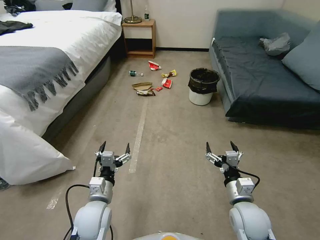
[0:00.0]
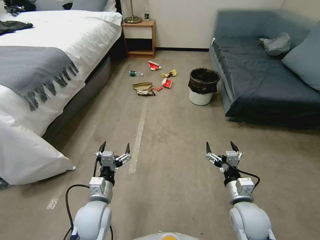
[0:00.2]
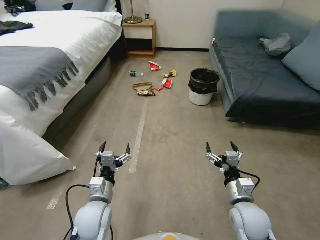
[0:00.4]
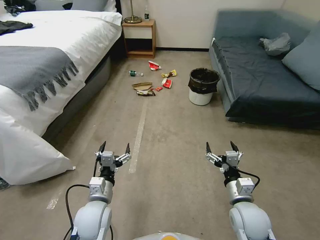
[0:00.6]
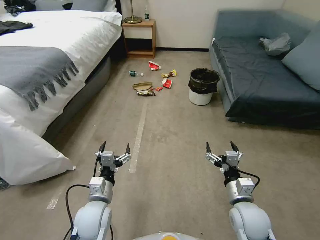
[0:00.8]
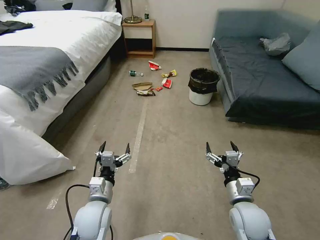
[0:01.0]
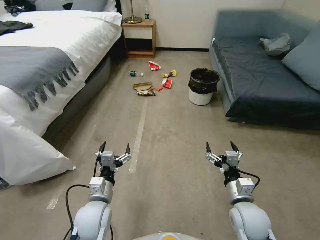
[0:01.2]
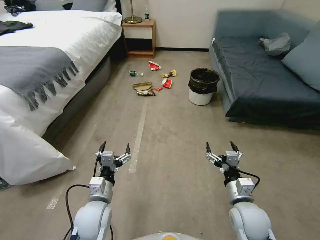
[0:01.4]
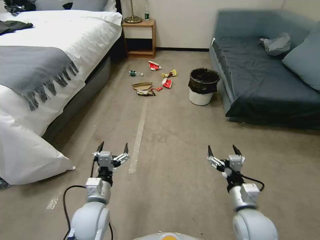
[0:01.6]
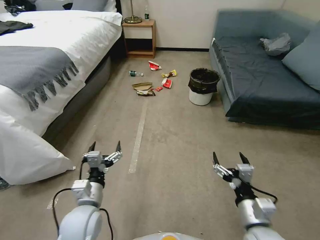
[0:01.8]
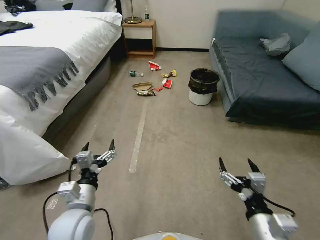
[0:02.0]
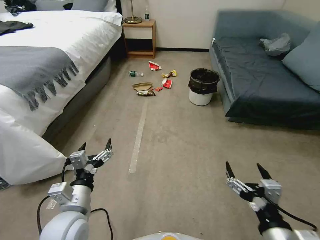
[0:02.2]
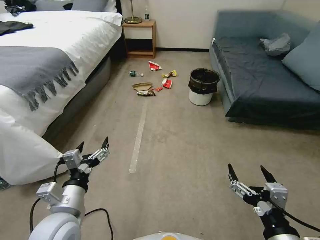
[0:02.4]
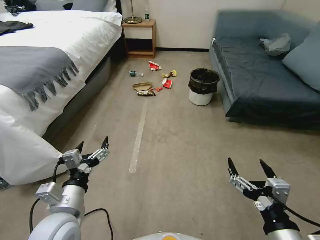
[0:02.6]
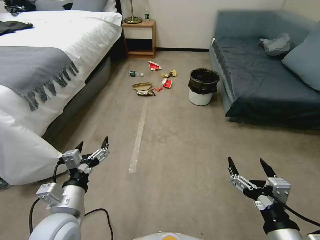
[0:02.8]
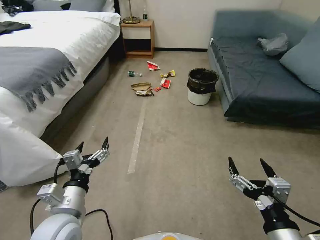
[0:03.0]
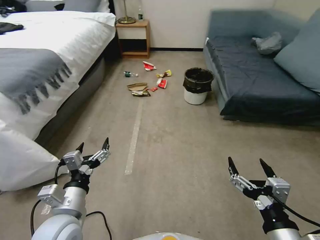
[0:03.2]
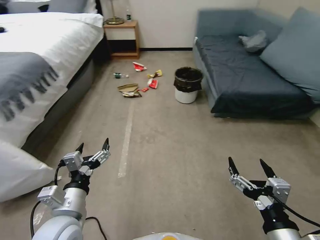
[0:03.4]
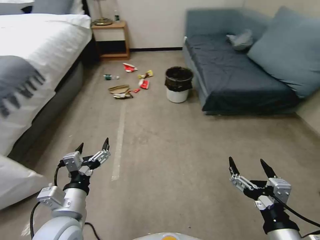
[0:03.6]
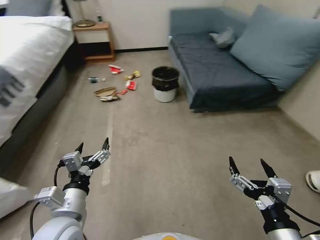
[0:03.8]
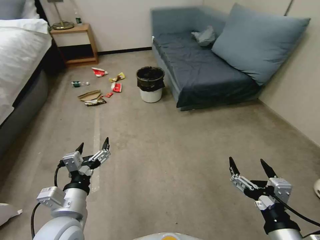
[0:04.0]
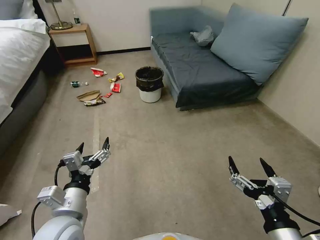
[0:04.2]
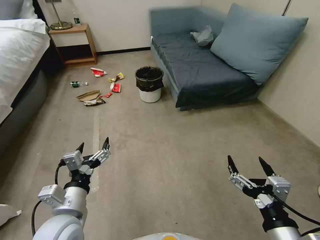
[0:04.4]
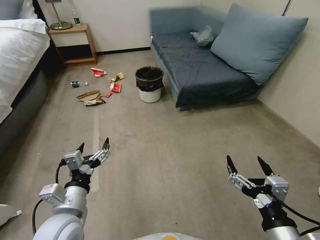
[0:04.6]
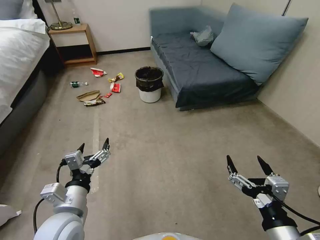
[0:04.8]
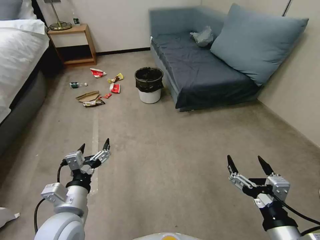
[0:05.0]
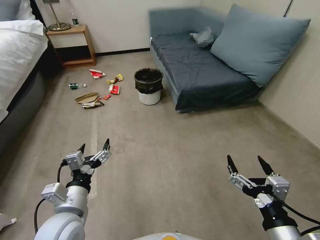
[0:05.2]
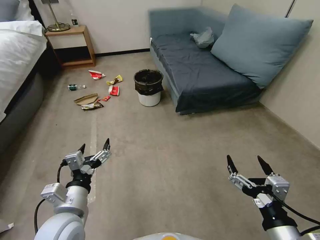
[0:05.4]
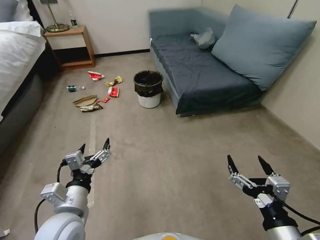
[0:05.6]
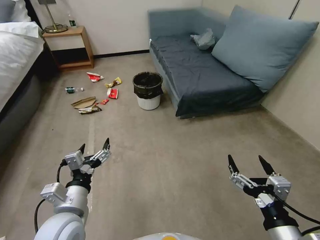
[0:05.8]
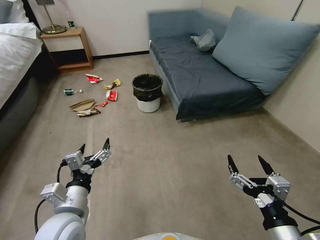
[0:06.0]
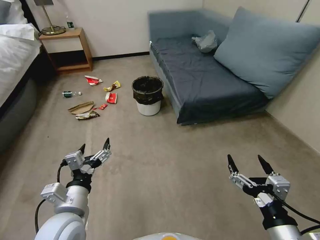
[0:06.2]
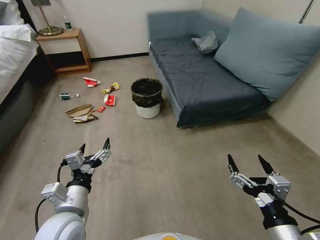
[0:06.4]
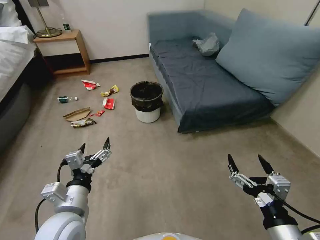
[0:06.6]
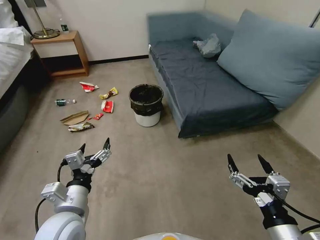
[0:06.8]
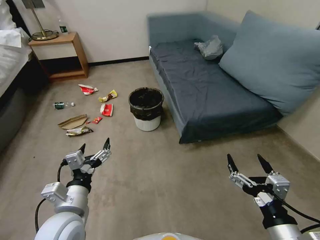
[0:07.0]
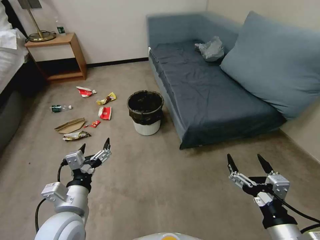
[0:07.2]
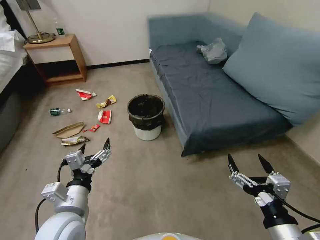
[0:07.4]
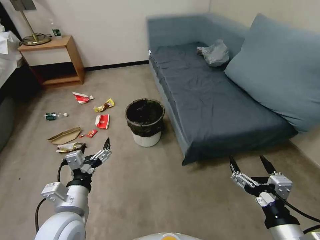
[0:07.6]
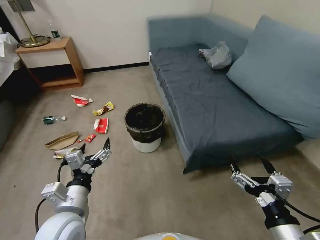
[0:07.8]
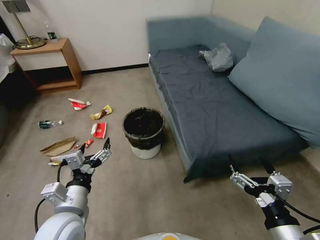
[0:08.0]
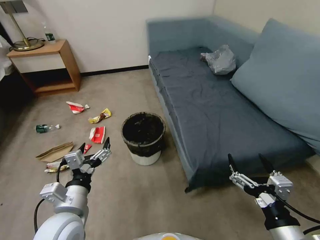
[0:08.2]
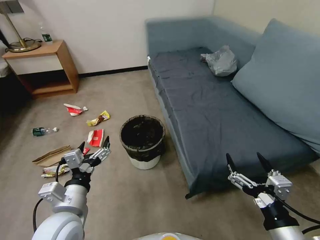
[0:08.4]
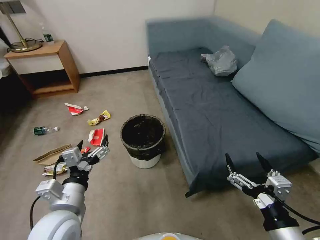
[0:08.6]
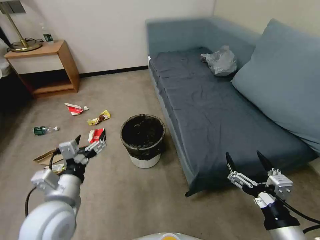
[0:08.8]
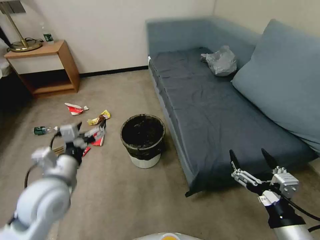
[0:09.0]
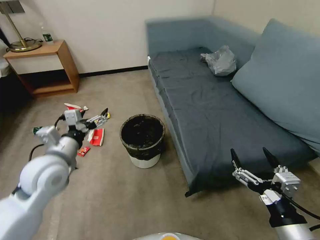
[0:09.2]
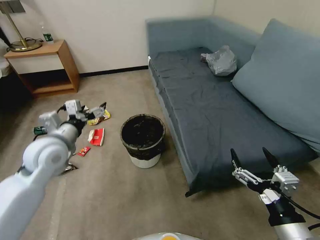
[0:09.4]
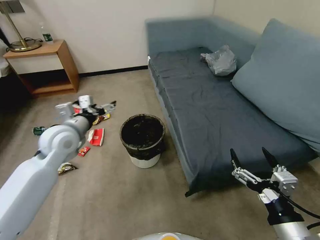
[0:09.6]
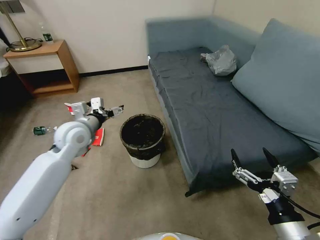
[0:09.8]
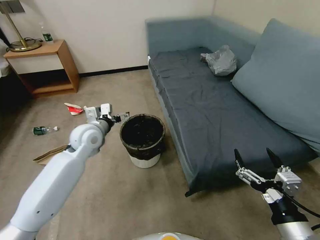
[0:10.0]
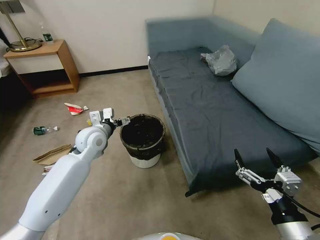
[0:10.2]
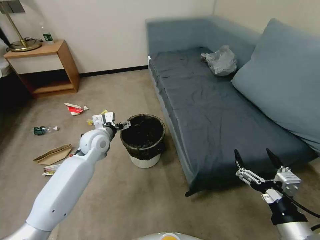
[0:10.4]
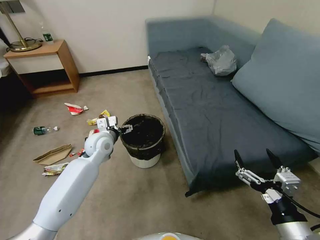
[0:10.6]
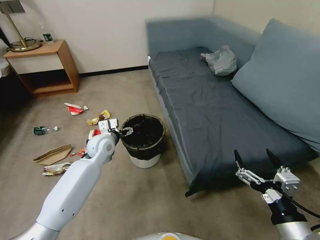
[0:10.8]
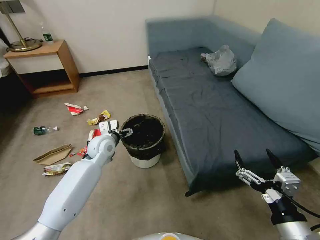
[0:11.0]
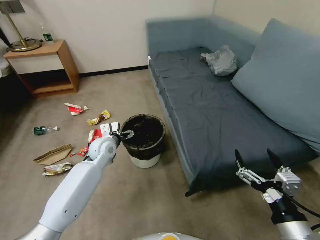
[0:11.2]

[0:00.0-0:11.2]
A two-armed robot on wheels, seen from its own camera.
Task of the whole recording: Pick up the trash can from the floor.
0:01.6 to 0:03.2: The left gripper goes approximately 10 cm upward. The right gripper heads backward and upward, covering some 15 cm.
0:08.0 to 0:09.6: The left gripper goes about 20 cm forward and upward.
0:09.6 to 0:11.2: The left gripper travels downward and to the right by some 15 cm.

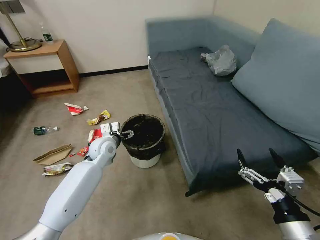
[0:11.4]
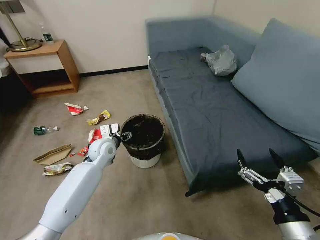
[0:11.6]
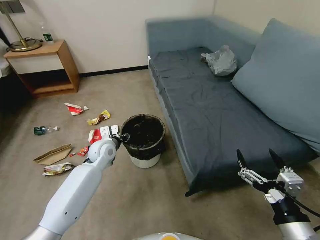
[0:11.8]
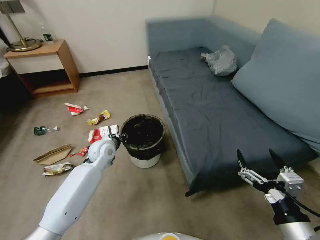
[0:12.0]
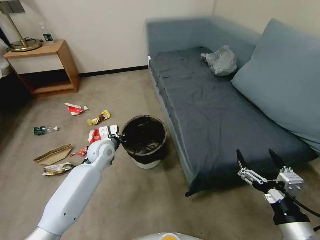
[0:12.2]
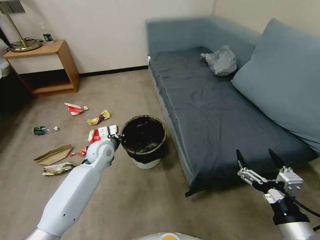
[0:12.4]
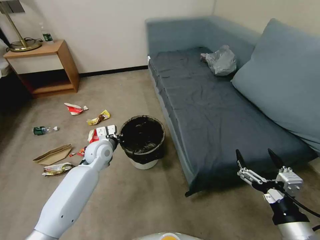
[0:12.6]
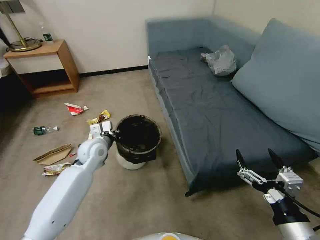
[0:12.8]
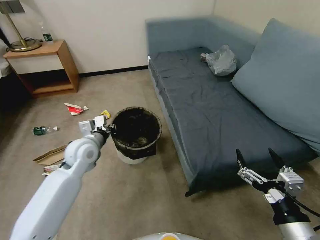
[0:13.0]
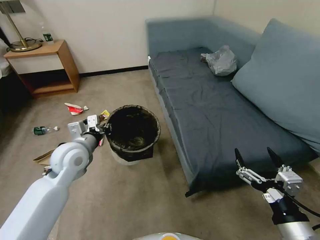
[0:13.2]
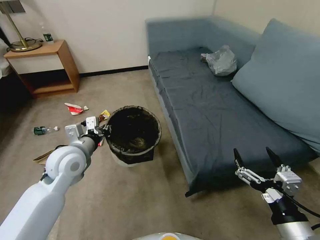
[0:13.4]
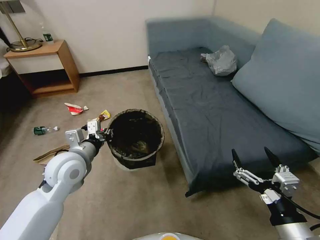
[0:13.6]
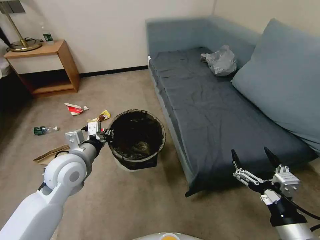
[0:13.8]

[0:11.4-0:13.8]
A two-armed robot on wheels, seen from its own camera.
Task of the whole recording: Pick up the trash can from the floor.
0:11.4 to 0:12.6: The left gripper closes.
0:12.6 to 0:13.8: The left gripper heads backward and upward, covering about 15 cm.
